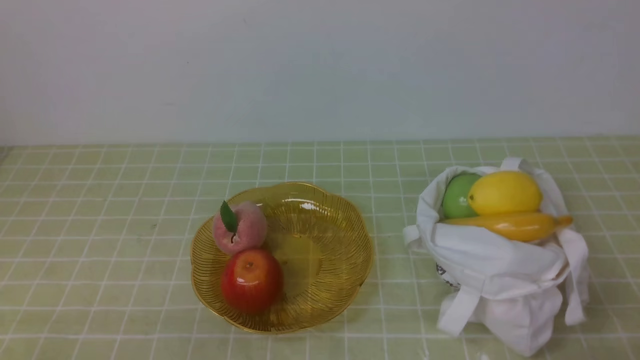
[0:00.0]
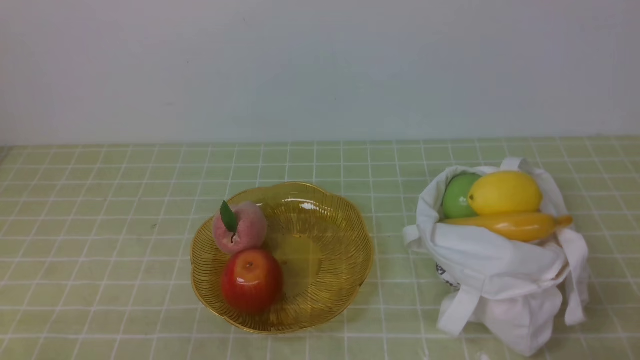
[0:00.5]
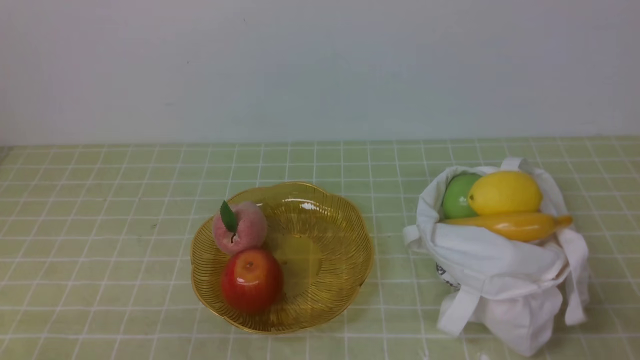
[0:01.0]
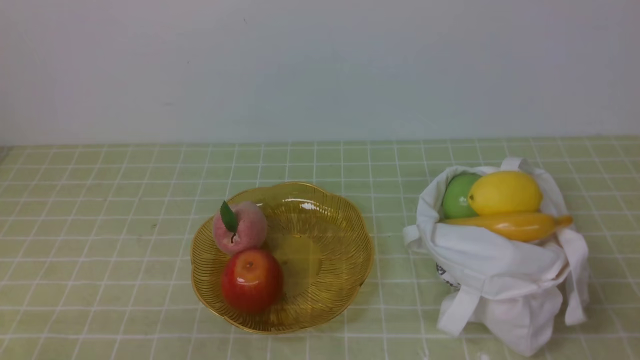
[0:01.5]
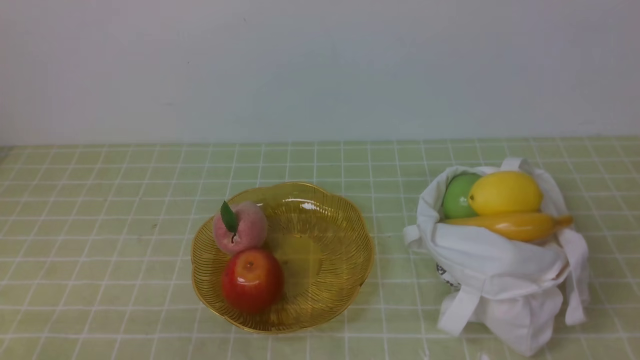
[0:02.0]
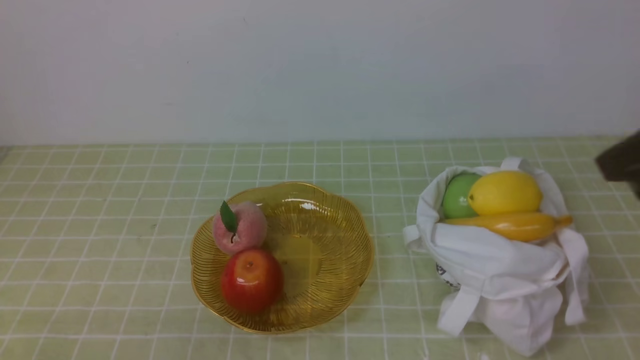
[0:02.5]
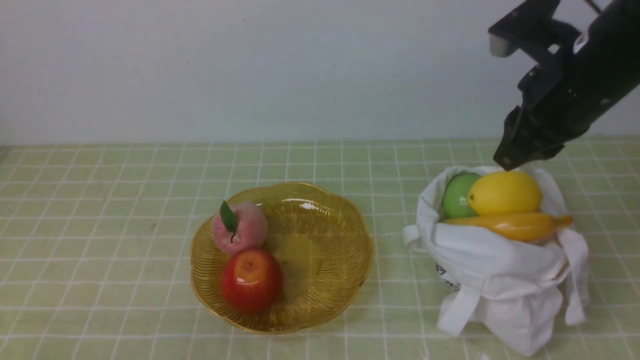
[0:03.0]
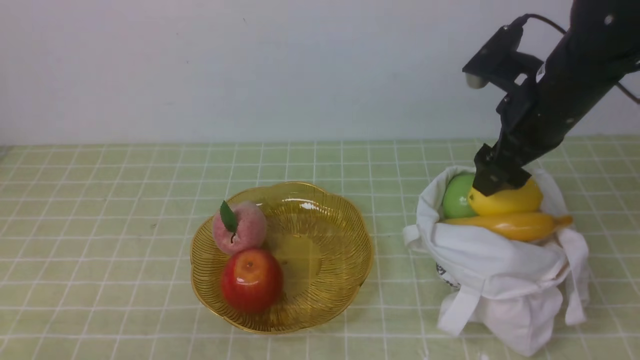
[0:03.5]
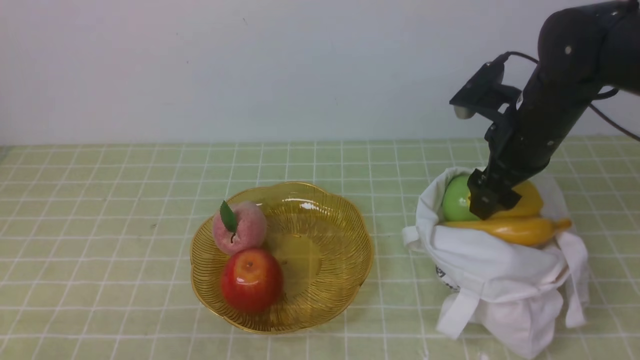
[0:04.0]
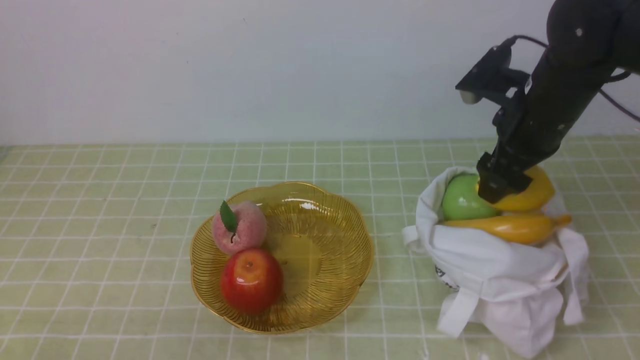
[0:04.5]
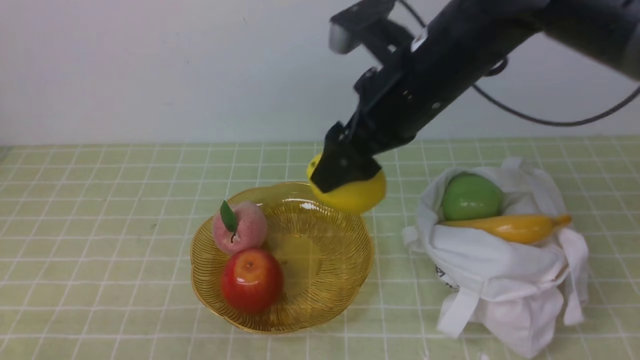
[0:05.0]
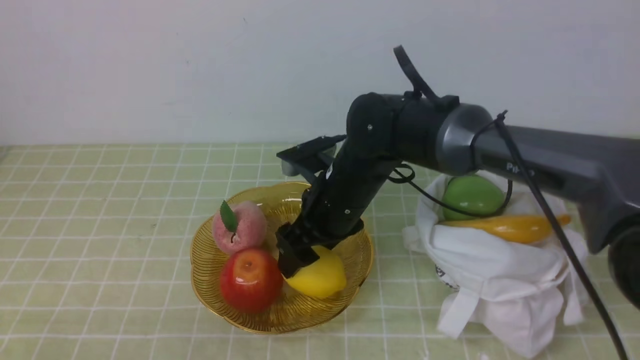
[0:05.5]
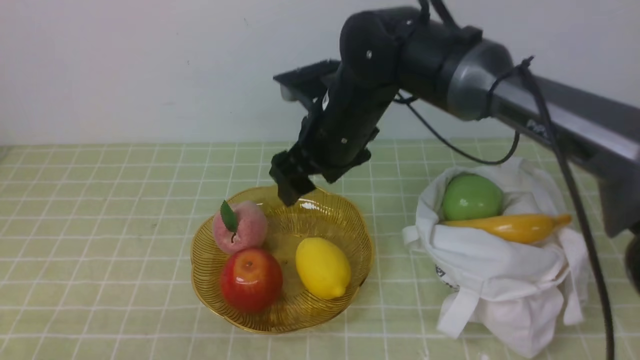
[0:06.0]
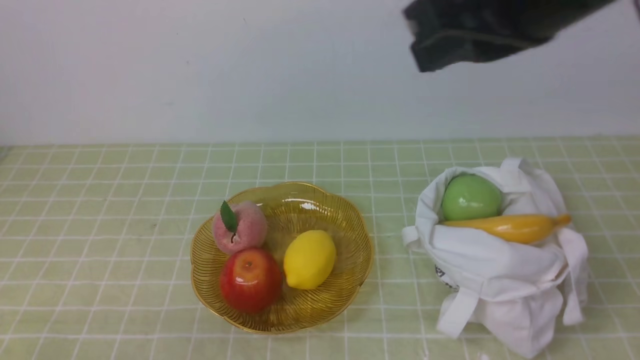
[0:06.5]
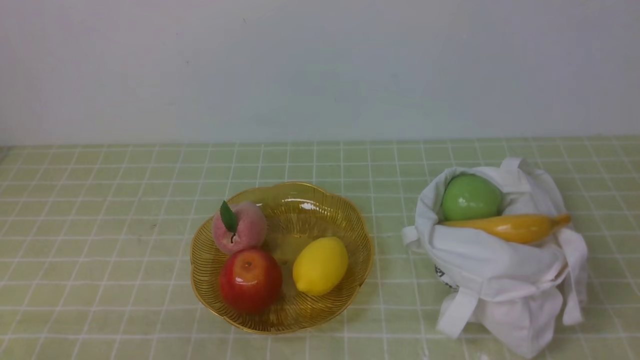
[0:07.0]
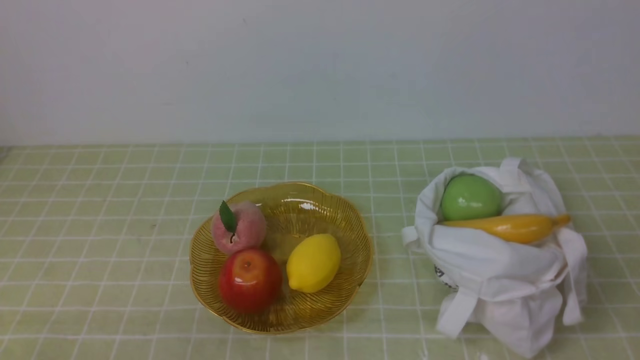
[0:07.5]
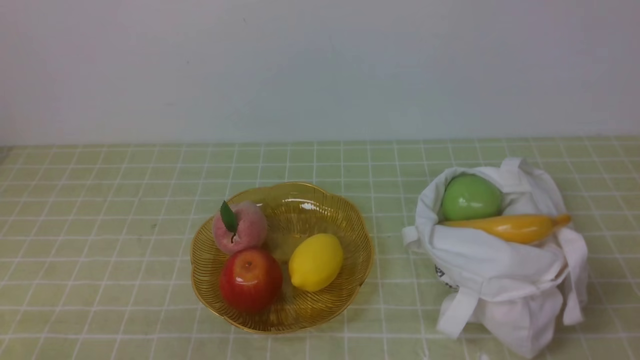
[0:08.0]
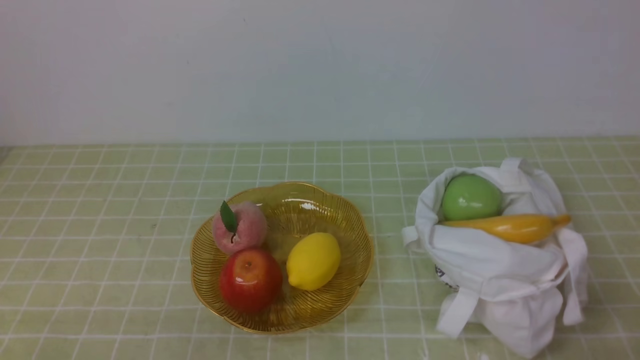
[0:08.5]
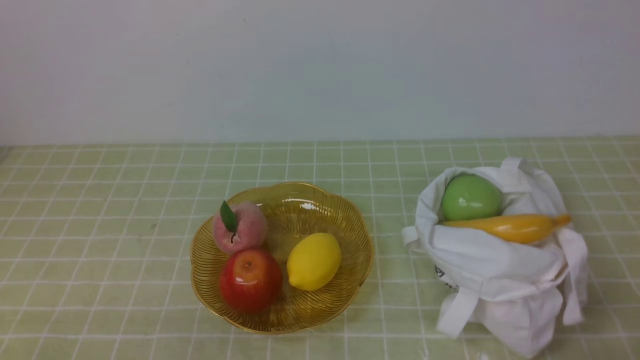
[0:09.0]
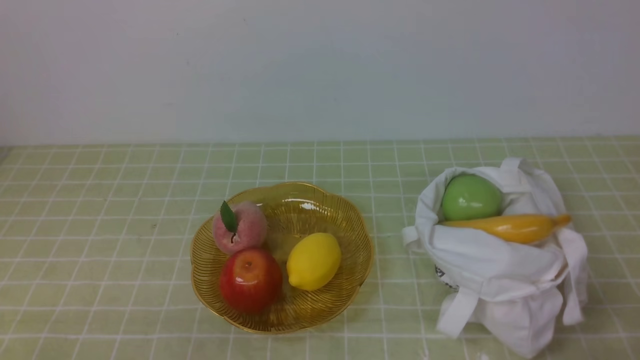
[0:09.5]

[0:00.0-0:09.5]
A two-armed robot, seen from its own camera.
Step, 0:00.0 to 0:04.5: use the right arm to grab a lemon from the bag.
Step, 0:05.0 to 0:05.5: use the right arm to put the lemon into the empty plate on the left.
0:02.0 to 0:04.0: The right gripper is displaced forward by roughly 30 cm, and opens.
0:04.0 to 0:05.5: The right gripper shifts roughly 20 cm to the left.
0:05.5 to 0:07.5: The right gripper shifts approximately 40 cm backward and to the right, and closes up.

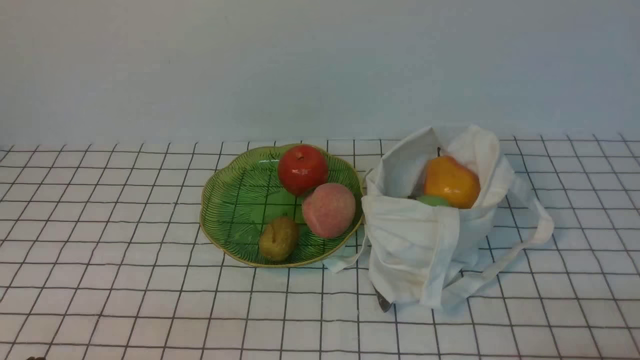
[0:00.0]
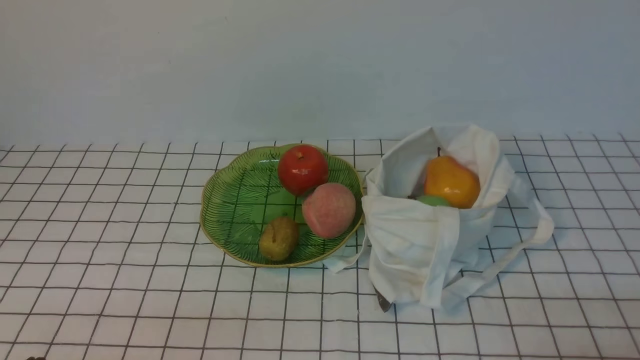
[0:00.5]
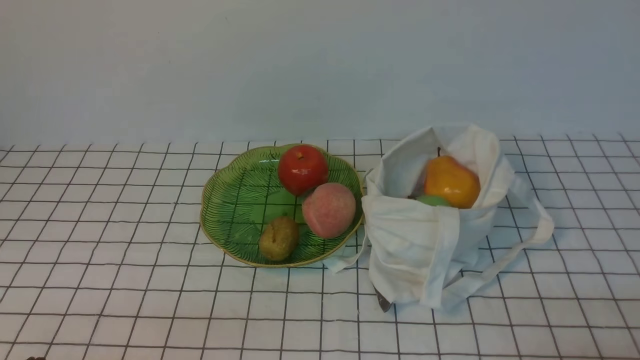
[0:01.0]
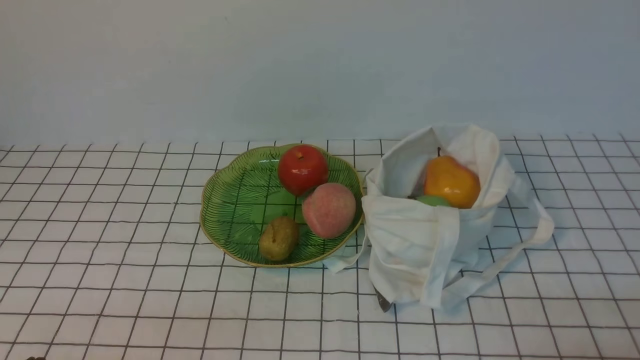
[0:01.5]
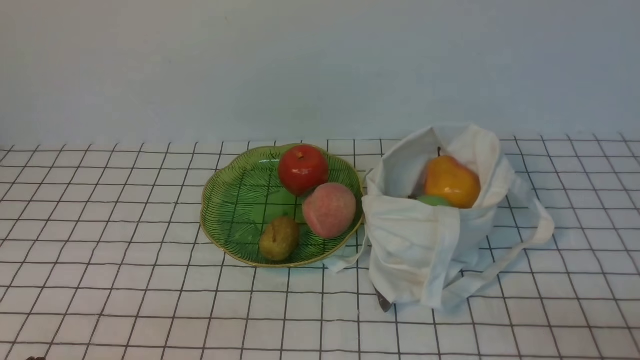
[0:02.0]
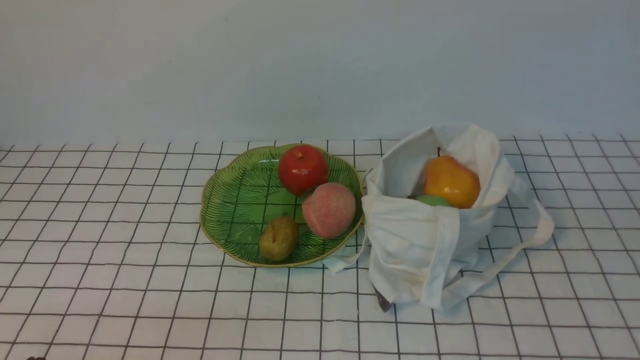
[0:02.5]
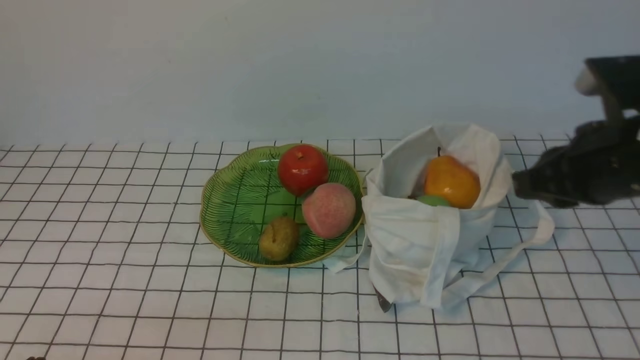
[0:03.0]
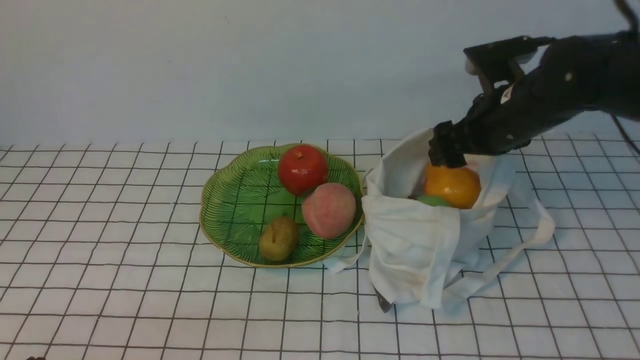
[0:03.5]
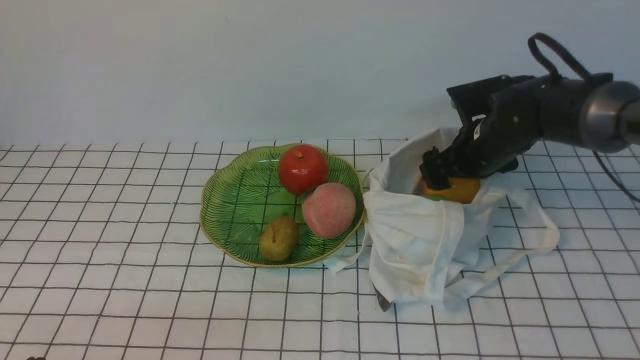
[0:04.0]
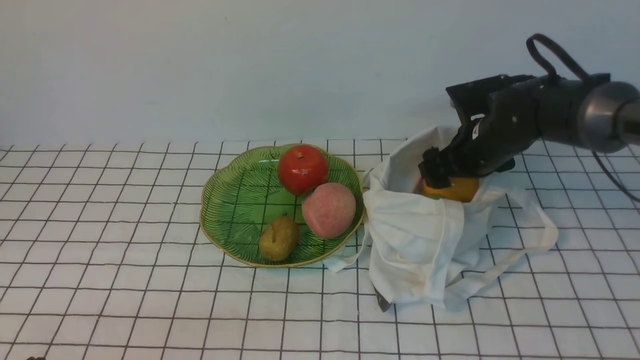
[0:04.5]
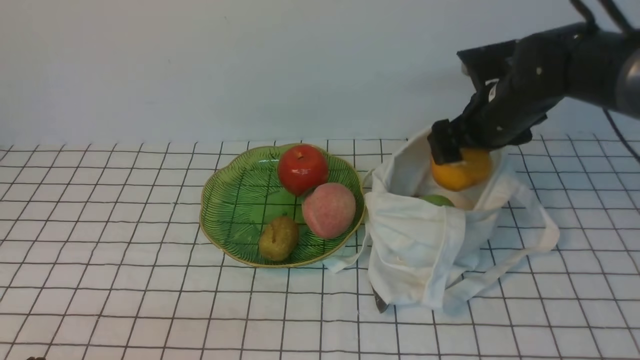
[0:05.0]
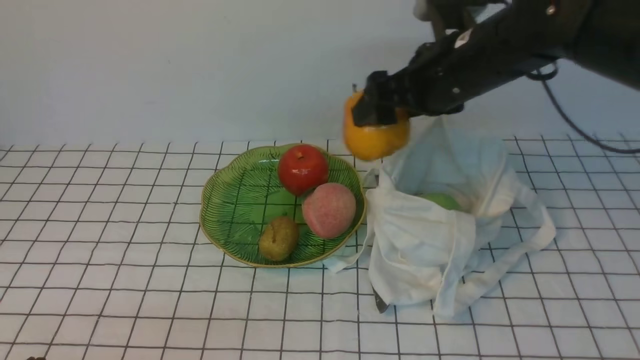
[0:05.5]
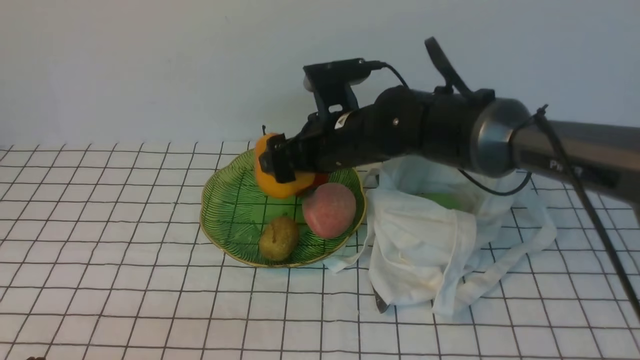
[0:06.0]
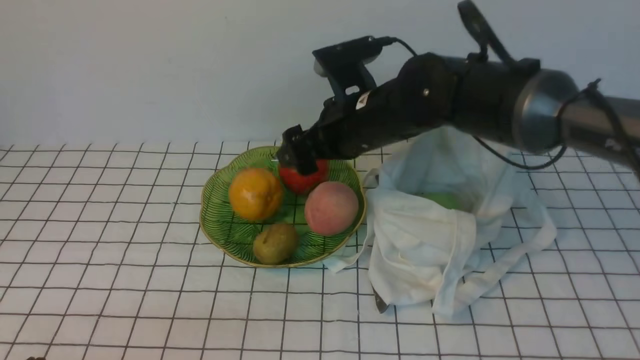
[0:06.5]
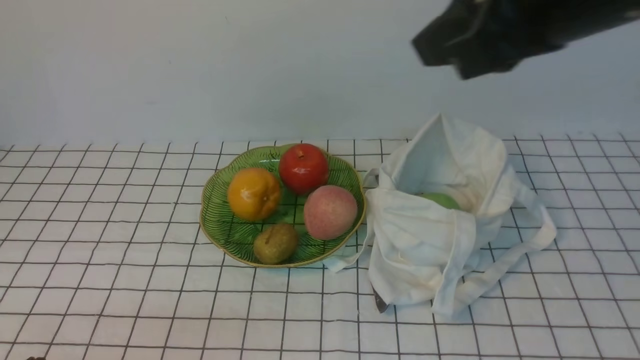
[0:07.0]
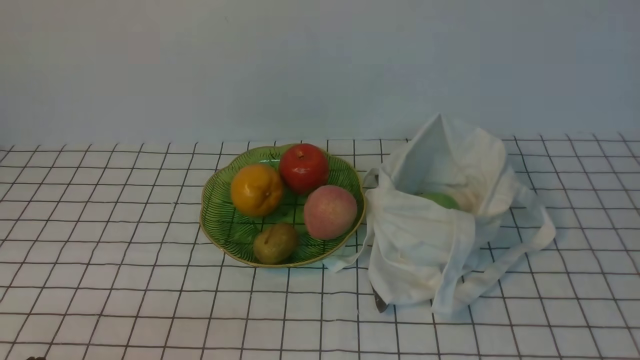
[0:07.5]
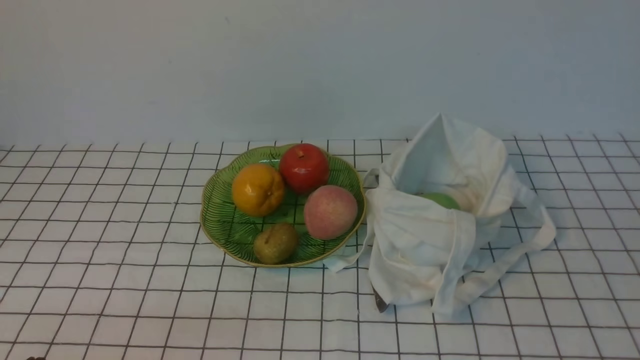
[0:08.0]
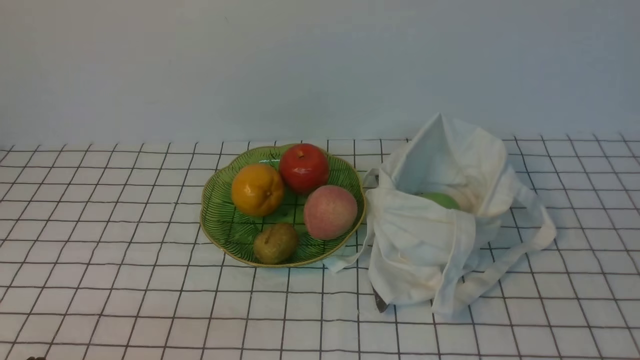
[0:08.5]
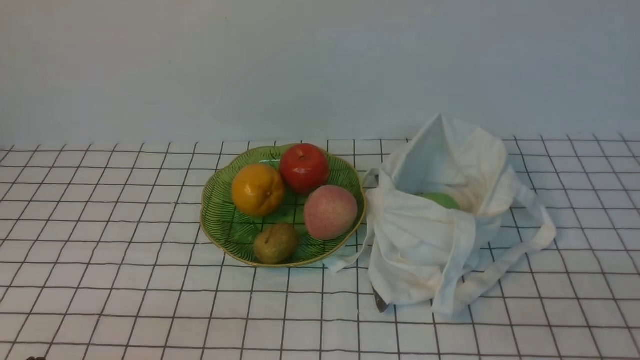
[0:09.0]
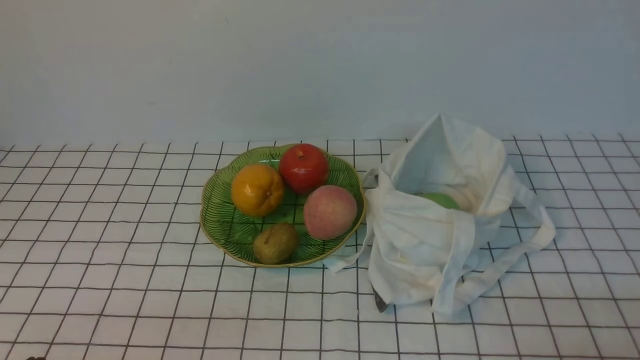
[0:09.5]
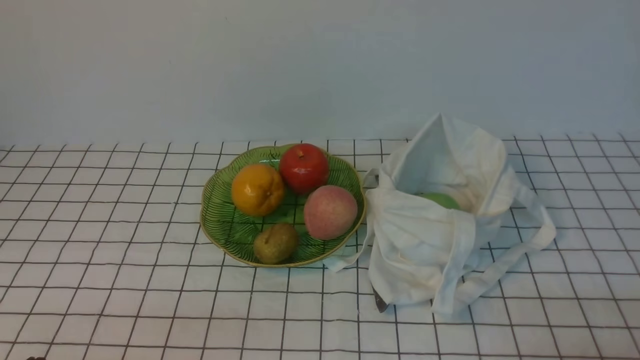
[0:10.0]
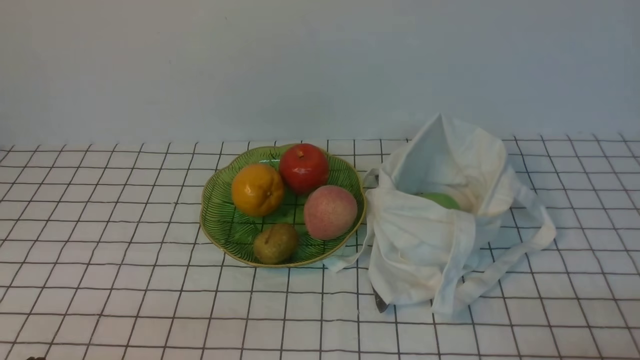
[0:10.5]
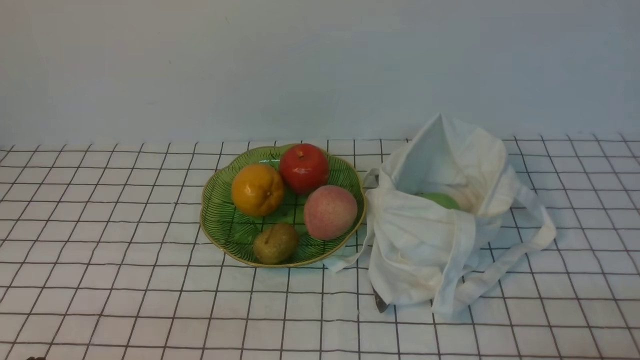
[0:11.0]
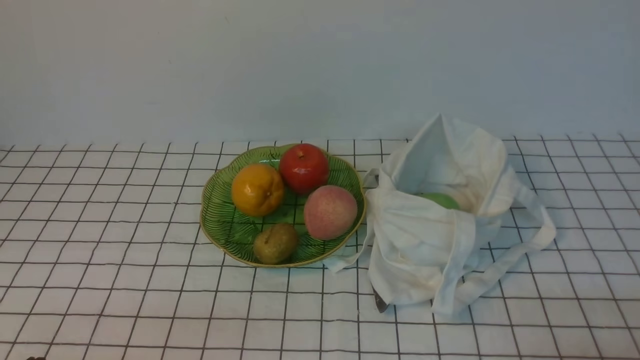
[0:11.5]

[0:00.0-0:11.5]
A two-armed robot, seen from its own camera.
Step, 0:00.0 to 0:04.5: use the right arm to grab a pear from the bag.
Step, 0:05.0 to 0:06.5: use the right arm to put the pear into the empty plate on the left.
0:02.0 to 0:04.0: The right gripper heads forward, covering approximately 35 cm, and opens its fingers.
0:04.0 to 0:06.0: The right gripper is displaced to the left by approximately 15 cm.
0:06.0 to 0:07.5: The right gripper moves backward, to the right and upward, approximately 50 cm, and closes up.
0:09.5 to 0:11.5: Neither gripper changes place.
